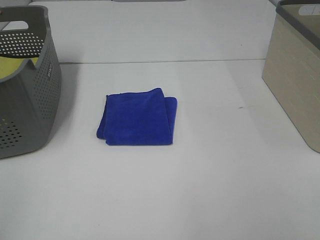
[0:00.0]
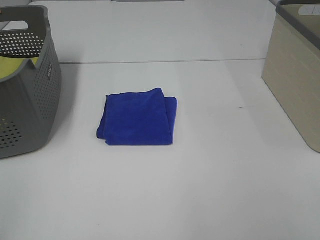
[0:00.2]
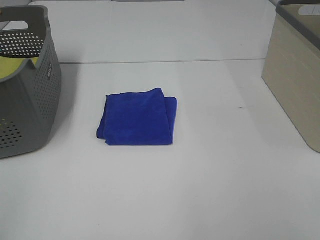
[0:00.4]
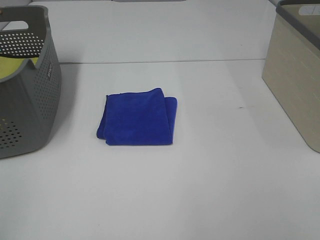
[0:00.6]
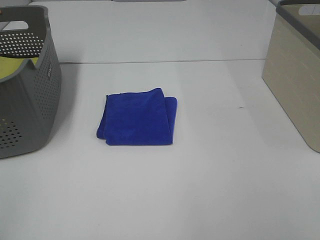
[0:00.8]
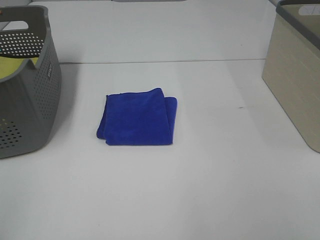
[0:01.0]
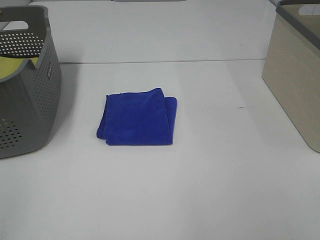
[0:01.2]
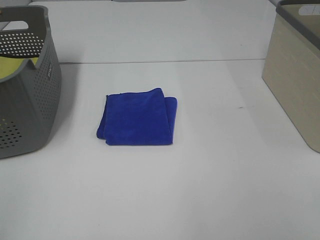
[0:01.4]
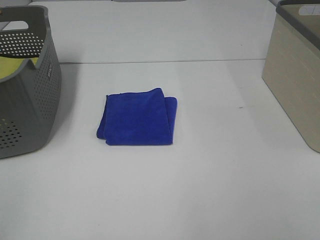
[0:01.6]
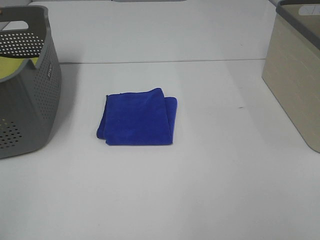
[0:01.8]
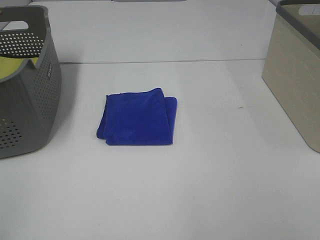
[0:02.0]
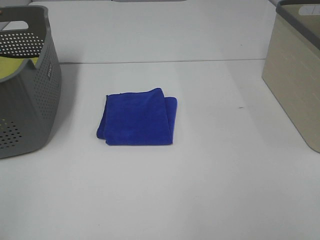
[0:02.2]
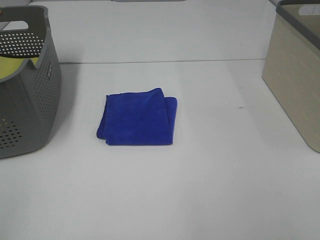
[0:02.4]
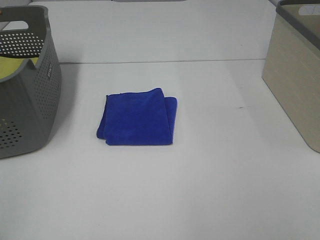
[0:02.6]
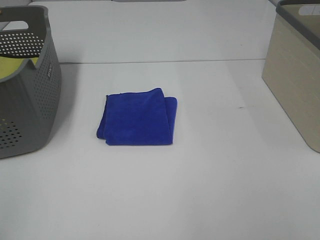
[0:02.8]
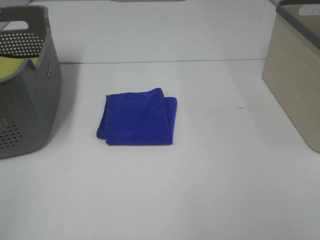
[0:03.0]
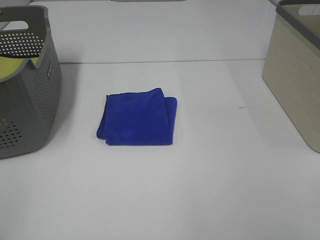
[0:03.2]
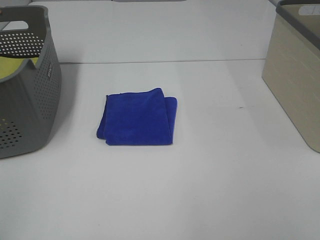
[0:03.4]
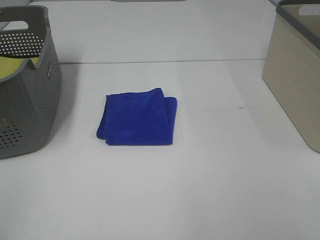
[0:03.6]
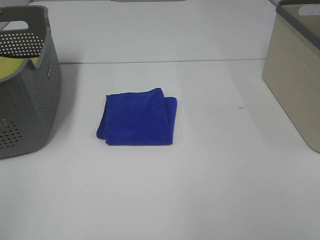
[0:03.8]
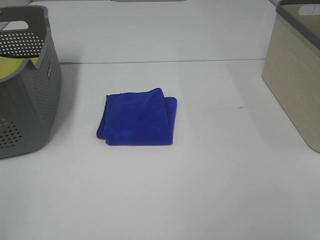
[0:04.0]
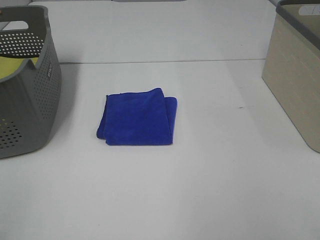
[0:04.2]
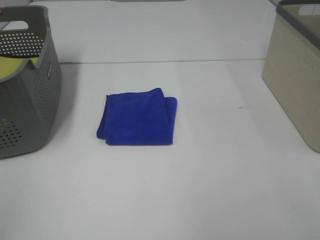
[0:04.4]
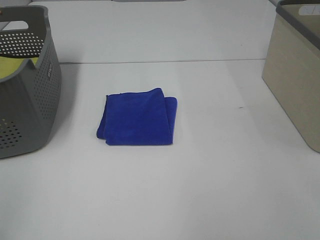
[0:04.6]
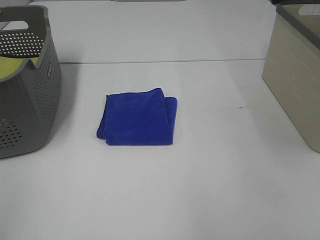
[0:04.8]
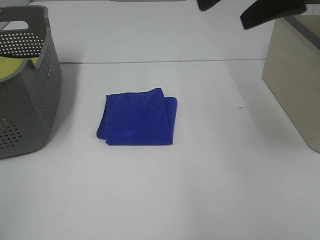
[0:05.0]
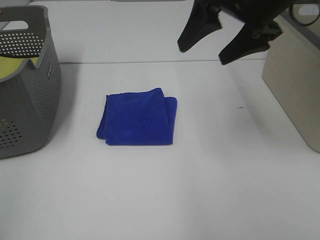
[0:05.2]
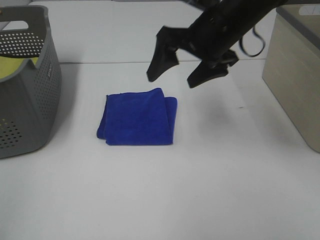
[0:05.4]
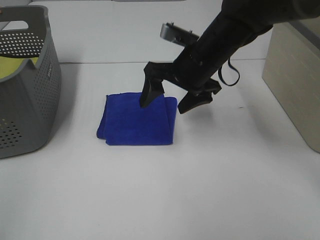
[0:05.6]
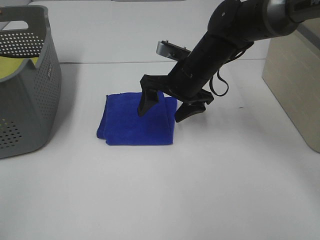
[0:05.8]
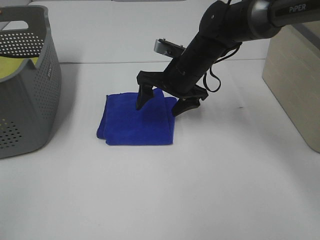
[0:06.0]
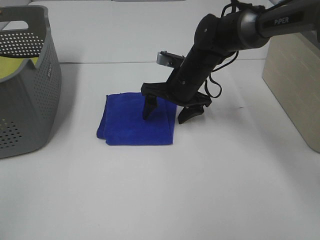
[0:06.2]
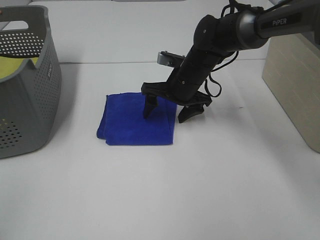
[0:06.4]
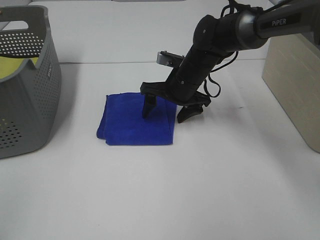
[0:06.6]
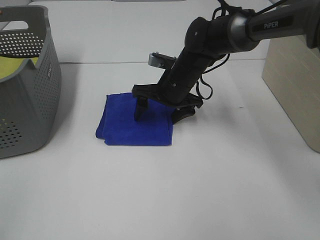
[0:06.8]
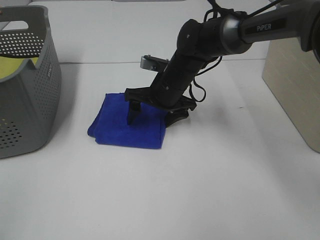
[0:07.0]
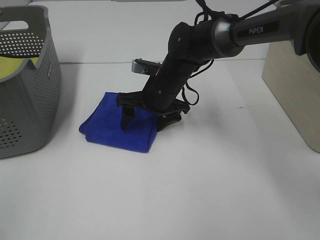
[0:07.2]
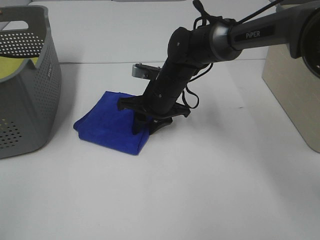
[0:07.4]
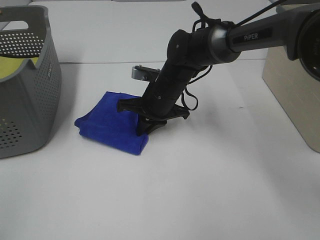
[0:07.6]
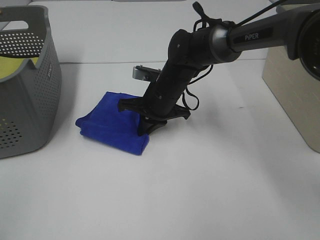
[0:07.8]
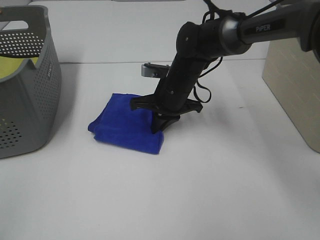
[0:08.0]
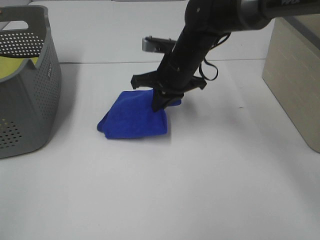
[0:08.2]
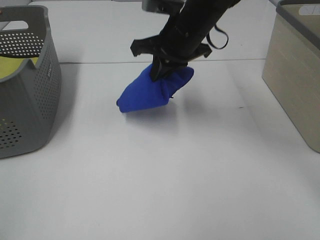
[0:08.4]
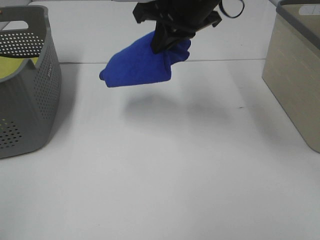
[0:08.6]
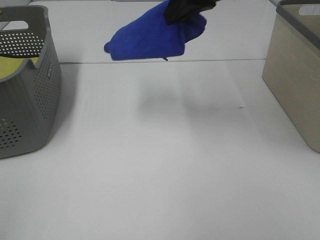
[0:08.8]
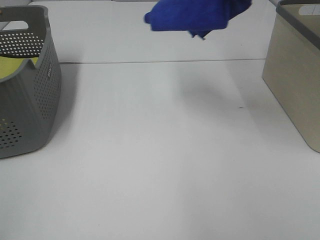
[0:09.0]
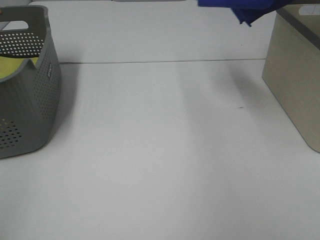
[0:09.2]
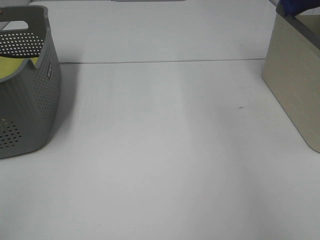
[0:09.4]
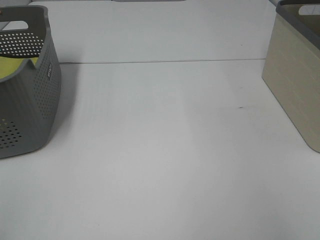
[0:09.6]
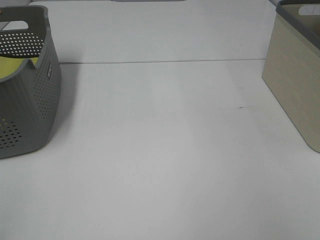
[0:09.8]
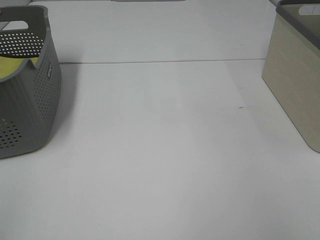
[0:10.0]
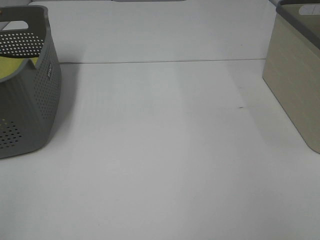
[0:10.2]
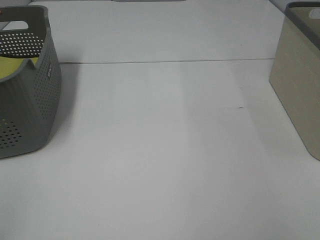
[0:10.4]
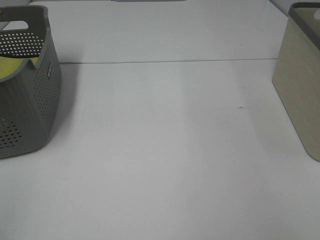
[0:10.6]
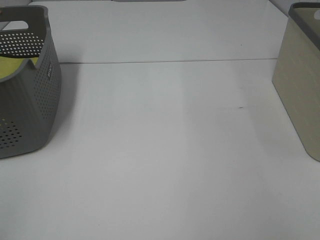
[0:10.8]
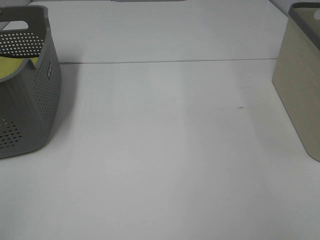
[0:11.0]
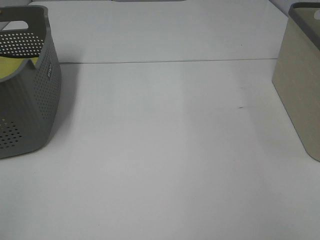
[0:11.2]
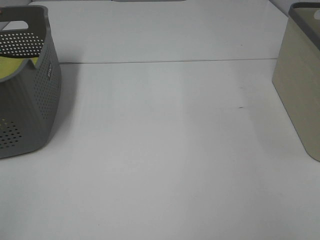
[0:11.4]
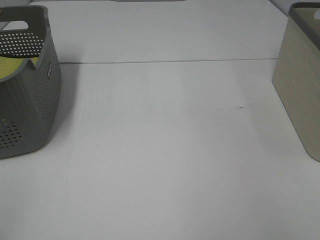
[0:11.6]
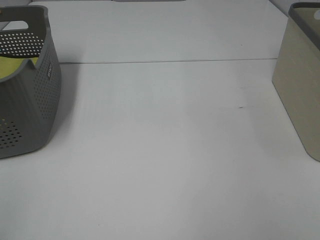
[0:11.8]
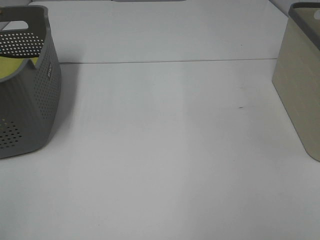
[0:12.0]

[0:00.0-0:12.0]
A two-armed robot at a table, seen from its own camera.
Step, 0:00.0 to 0:07.6: Right hand: grab the folded blue towel.
Step, 0:07.8 to 0:11.6: Right hand: place the blue towel in right basket.
0:00.0 to 0:03.0: Neither gripper changes place.
0:04.4 to 0:06.0: The right gripper heads forward, downward and to the left, covering approximately 40 cm.
0:06.0 to 0:07.6: The right gripper moves approximately 5 cm, and closes its fingers.
0:07.6 to 0:09.0: The right gripper shifts roughly 35 cm upward and to the right.
0:09.0 to 0:10.4: The right gripper shifts about 30 cm to the right and downward.

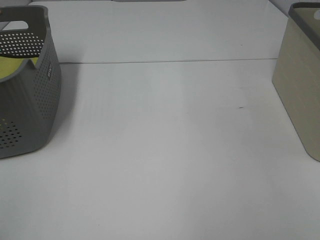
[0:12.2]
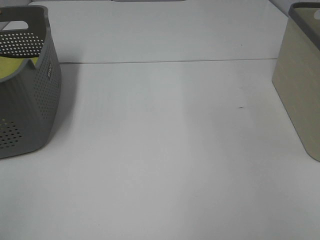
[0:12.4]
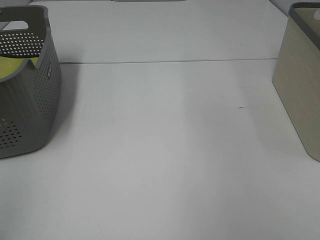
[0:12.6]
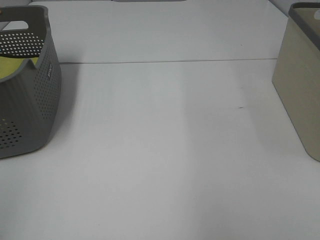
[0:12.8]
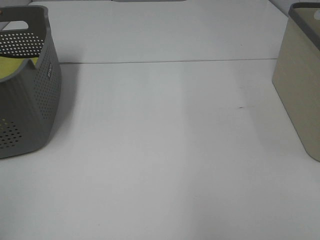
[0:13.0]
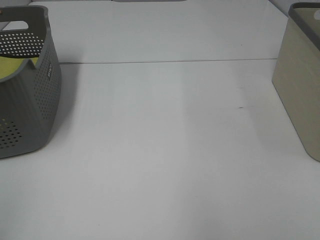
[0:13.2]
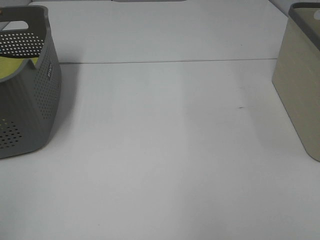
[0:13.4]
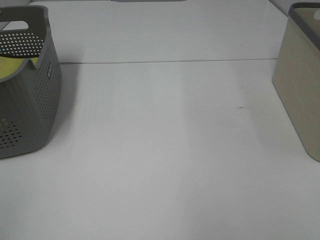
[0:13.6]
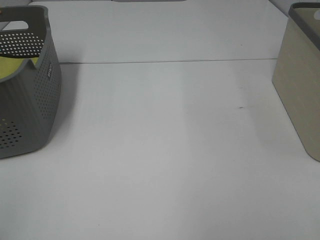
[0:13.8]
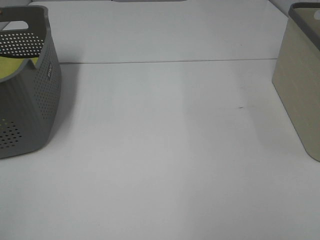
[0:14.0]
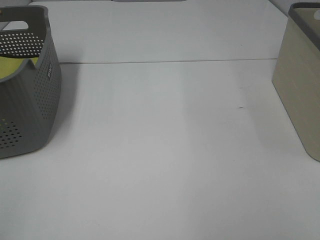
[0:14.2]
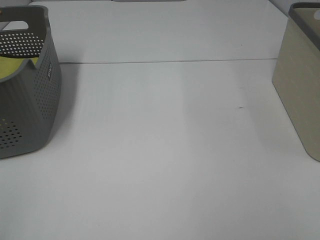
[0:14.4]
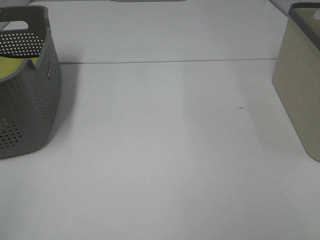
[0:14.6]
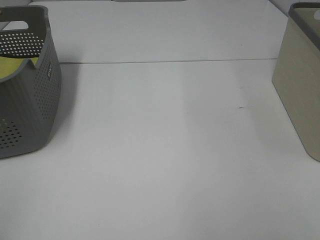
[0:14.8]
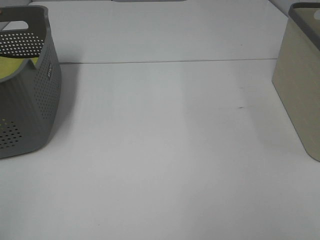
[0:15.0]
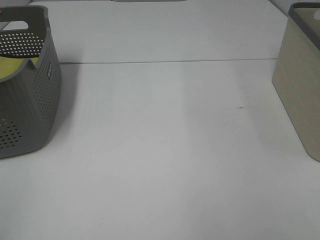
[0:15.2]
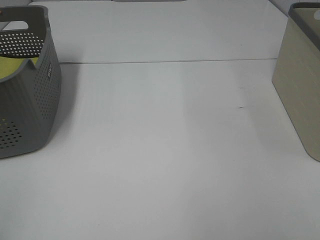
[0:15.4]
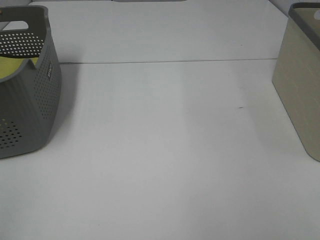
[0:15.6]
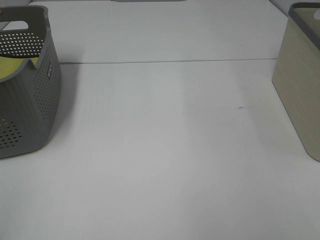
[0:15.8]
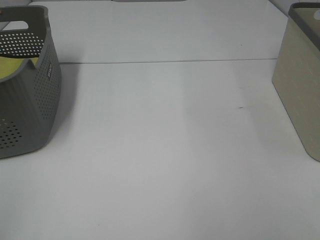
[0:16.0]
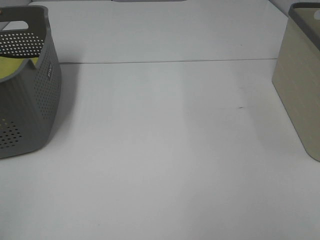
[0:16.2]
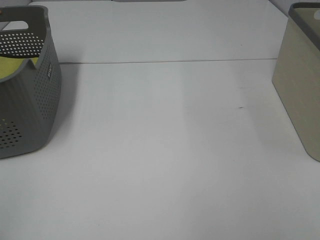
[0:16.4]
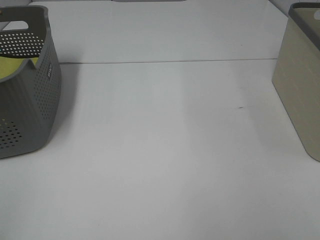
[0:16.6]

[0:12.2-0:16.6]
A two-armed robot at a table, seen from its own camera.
0:15.2 to 0:16.6: Neither gripper changes place.
